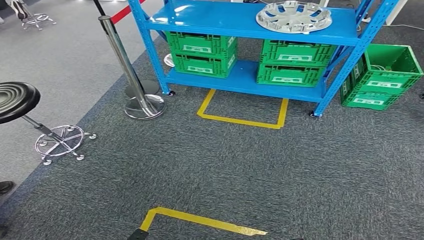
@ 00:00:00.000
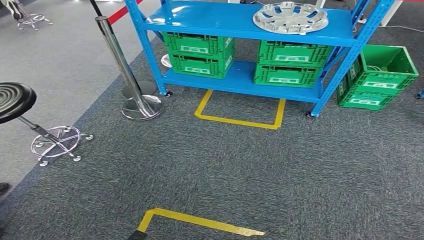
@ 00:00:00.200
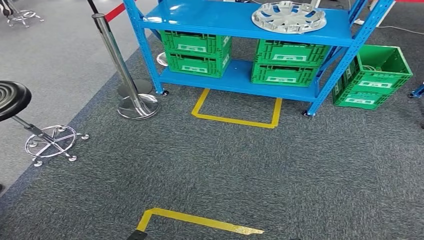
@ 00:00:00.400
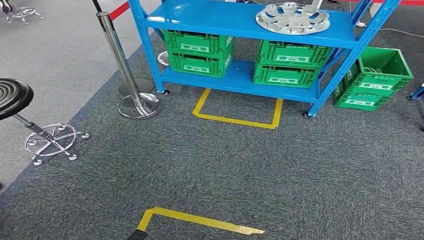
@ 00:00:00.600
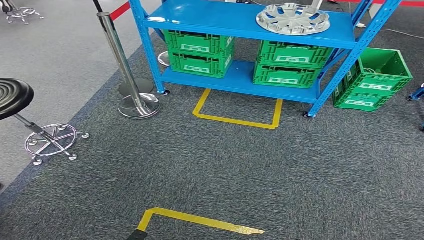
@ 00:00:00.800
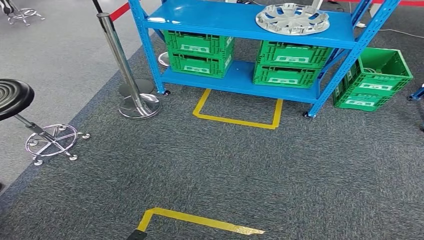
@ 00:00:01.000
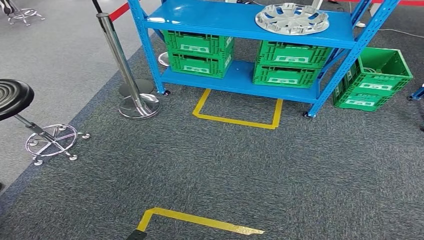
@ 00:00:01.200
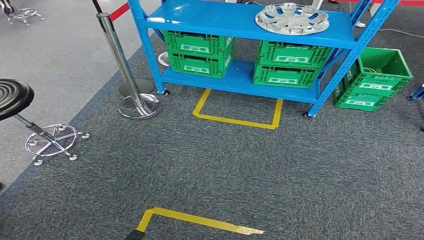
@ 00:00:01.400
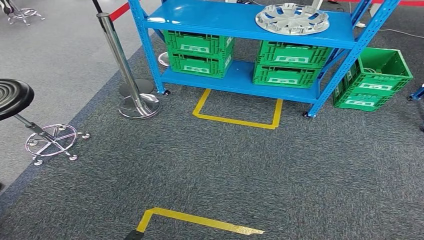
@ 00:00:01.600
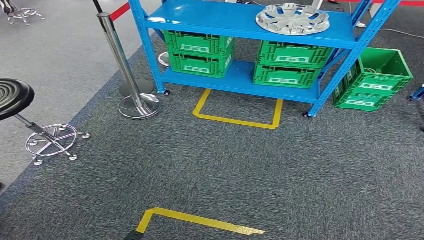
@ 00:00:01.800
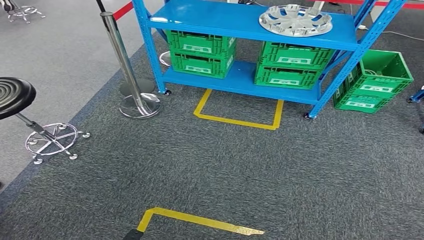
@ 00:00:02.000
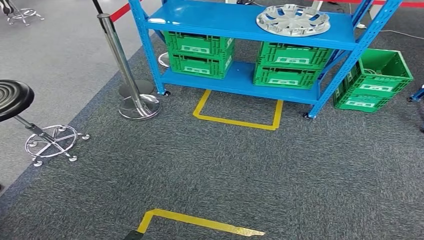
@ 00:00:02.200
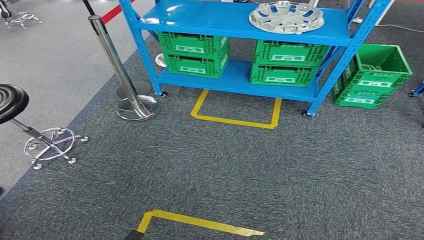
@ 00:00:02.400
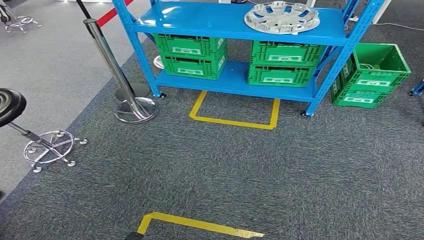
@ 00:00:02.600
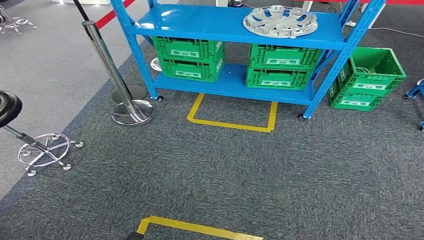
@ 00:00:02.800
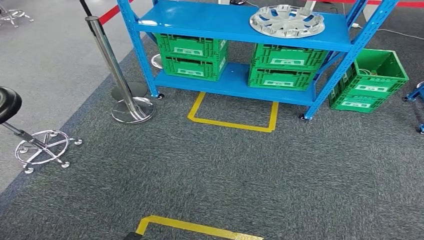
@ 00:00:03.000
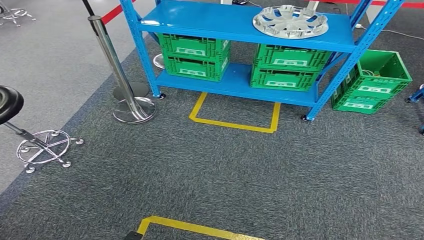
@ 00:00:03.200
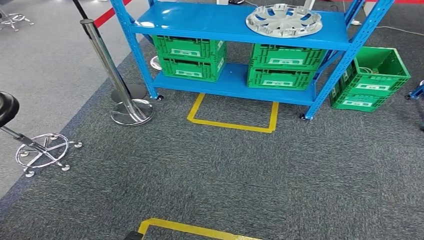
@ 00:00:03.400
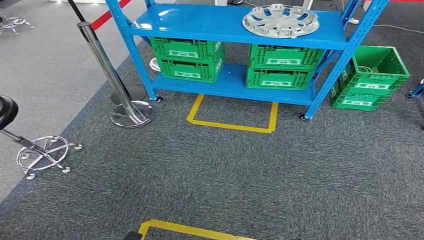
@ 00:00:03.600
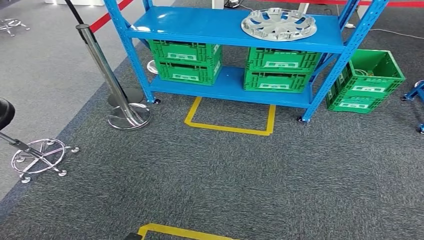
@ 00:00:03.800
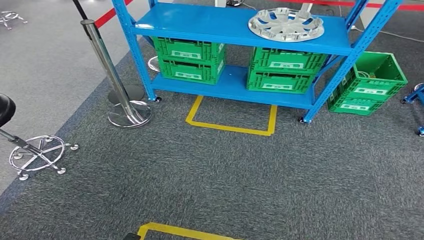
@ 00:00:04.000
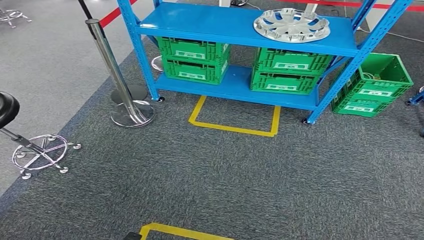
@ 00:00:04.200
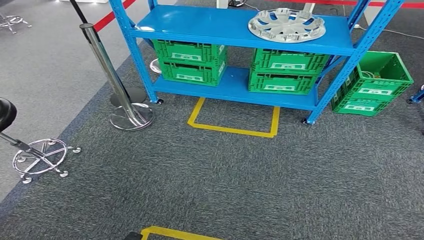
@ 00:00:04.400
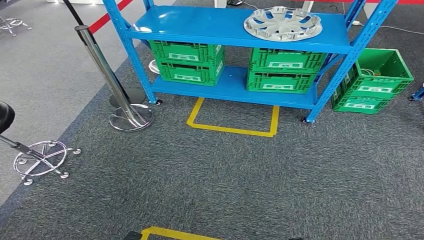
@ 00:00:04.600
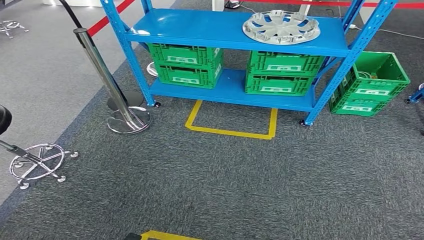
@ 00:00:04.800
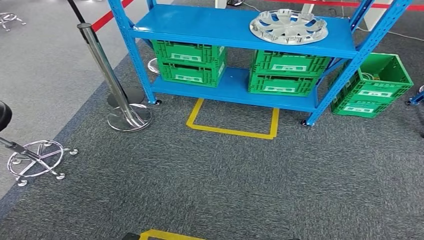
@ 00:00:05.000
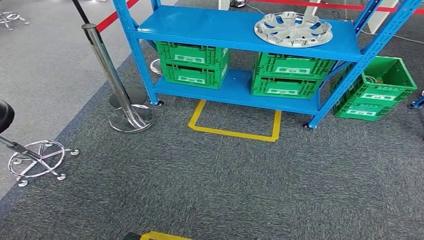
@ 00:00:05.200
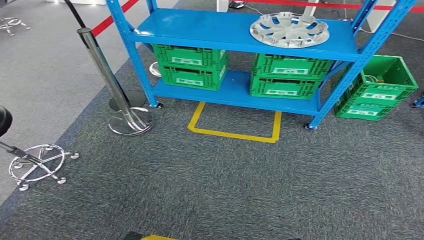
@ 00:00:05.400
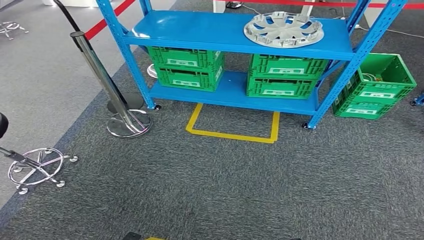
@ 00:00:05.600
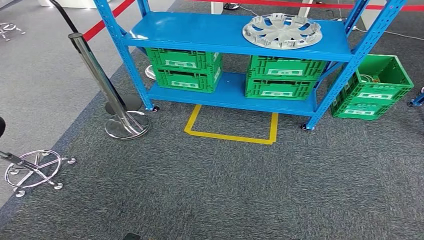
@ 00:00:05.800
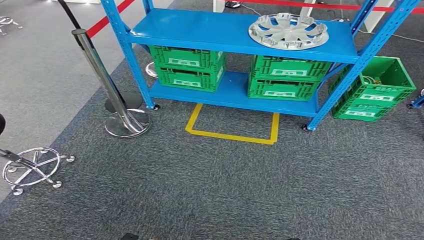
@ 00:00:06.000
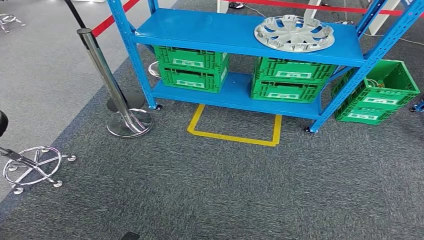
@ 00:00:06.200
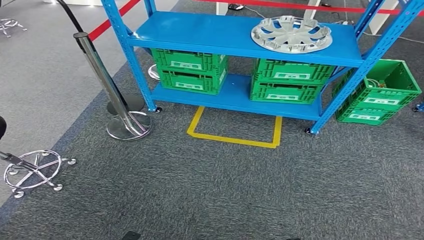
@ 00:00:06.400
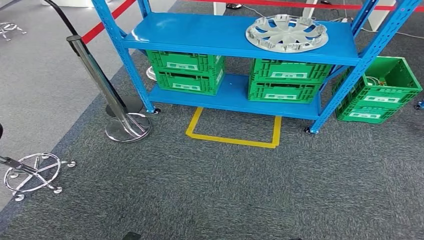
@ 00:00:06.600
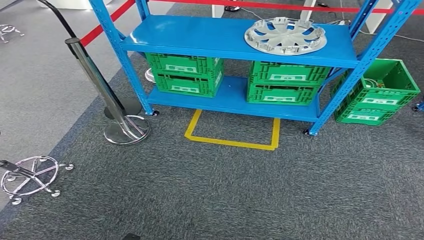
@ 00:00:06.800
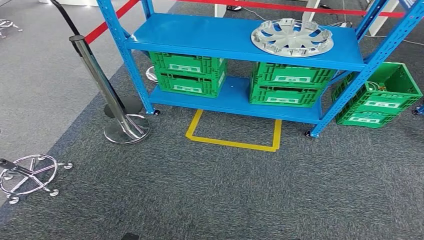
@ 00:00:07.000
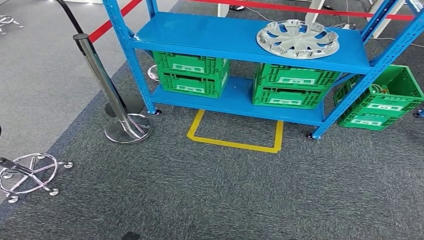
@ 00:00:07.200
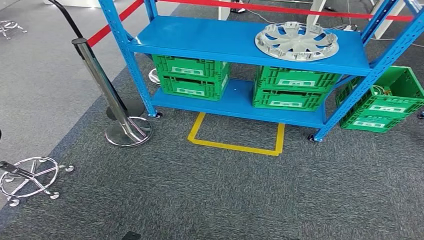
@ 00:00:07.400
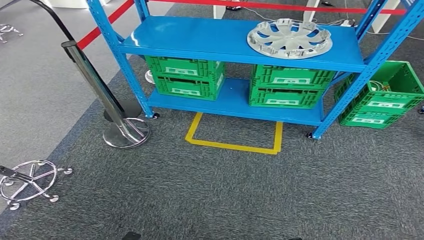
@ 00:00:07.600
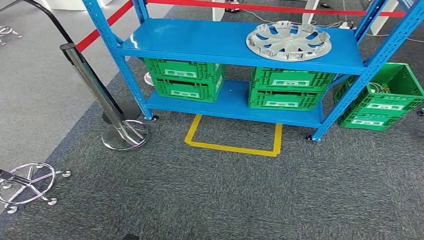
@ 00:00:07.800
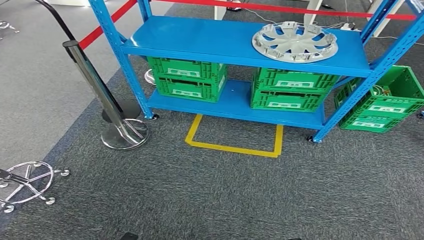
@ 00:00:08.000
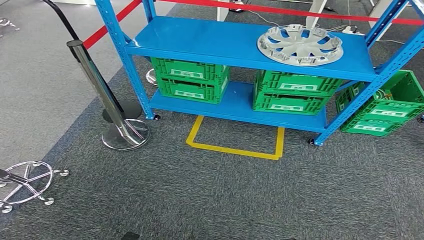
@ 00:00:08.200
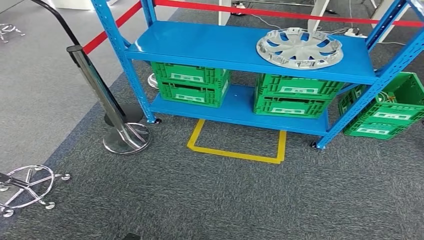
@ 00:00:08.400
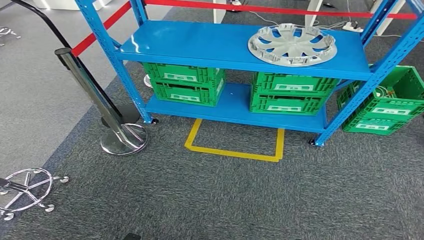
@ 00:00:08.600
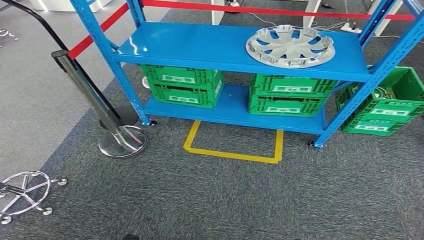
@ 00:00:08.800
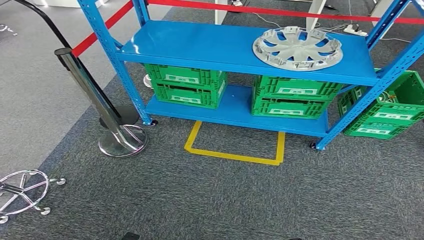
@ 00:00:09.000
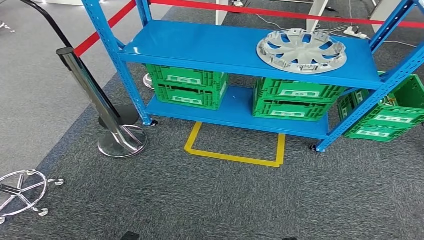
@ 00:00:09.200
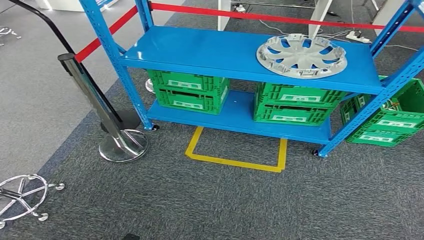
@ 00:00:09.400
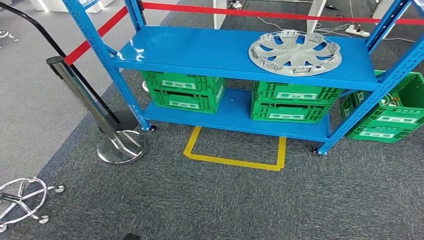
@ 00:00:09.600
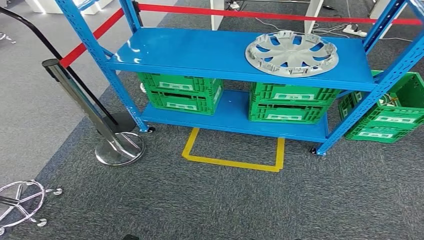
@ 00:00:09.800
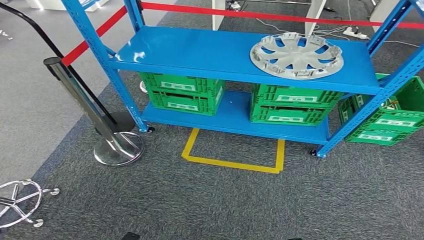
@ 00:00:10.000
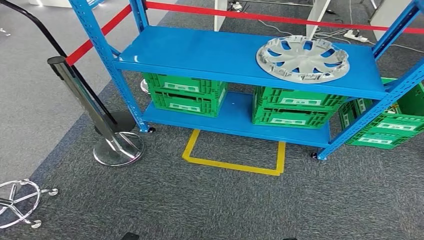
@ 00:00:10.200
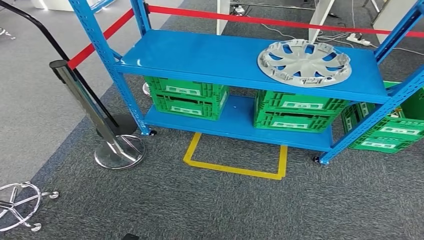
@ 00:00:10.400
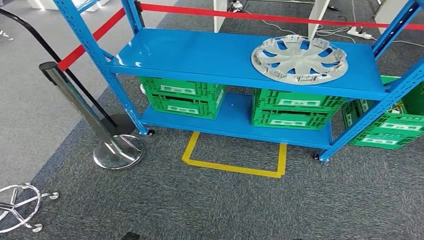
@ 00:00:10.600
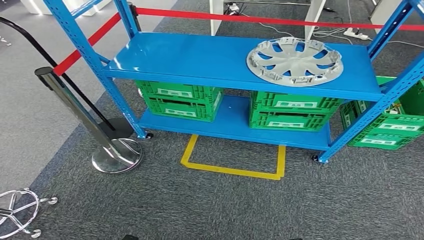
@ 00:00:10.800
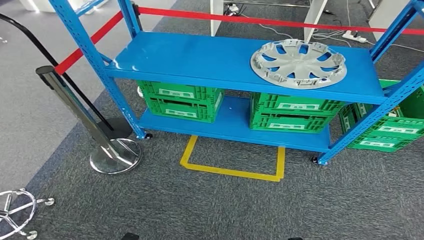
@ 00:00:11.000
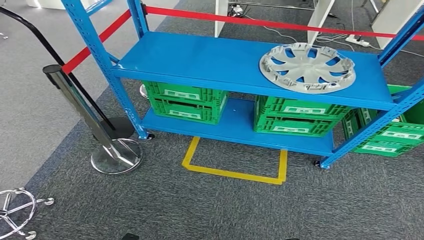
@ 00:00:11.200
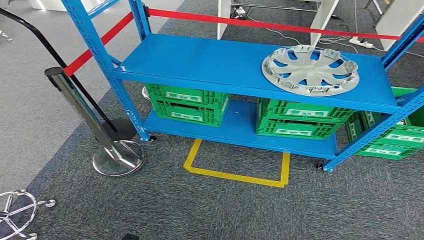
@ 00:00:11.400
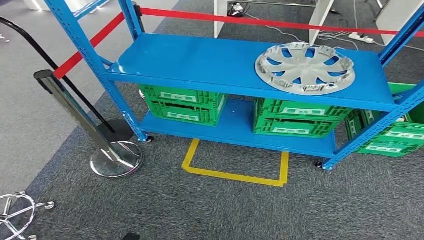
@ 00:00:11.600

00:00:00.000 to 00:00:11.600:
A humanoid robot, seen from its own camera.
Step, 00:00:00.000 to 00:00:11.600: Return to the initial position at the workbench.
00:00:00.000 to 00:00:01.400: Neither hand changes place.
00:00:02.800 to 00:00:04.400: Both hands stay put.
